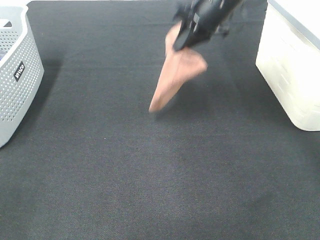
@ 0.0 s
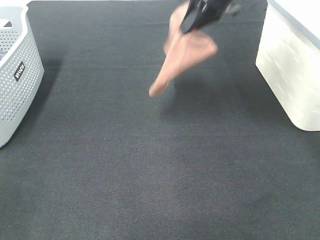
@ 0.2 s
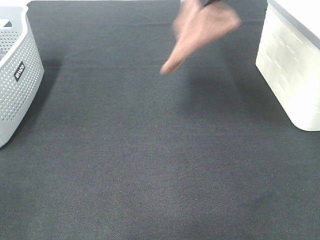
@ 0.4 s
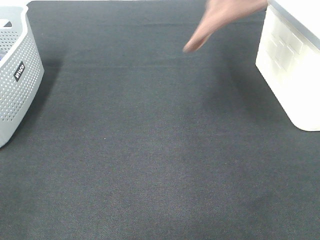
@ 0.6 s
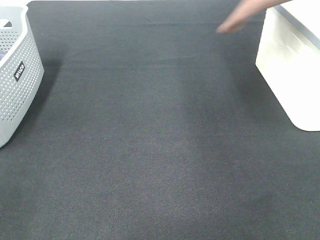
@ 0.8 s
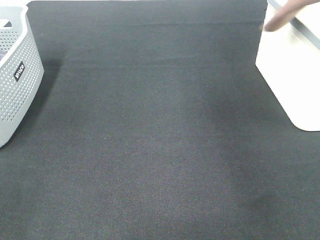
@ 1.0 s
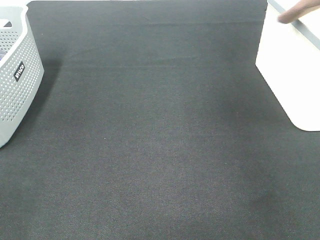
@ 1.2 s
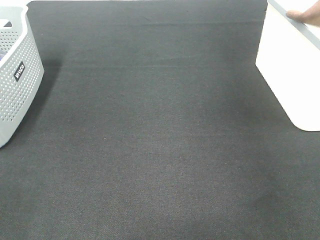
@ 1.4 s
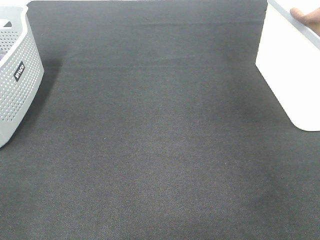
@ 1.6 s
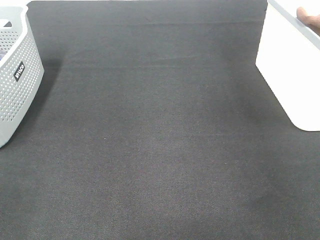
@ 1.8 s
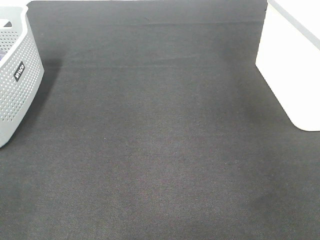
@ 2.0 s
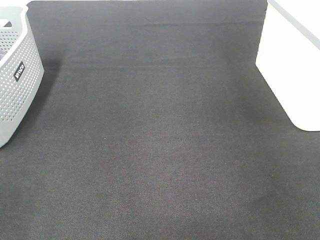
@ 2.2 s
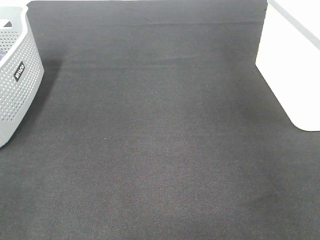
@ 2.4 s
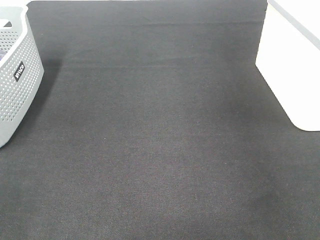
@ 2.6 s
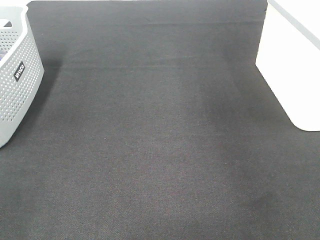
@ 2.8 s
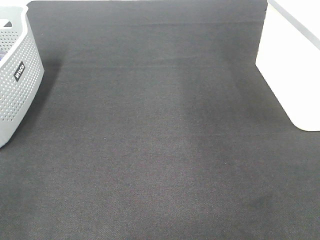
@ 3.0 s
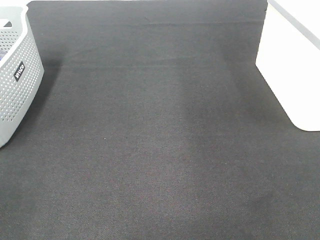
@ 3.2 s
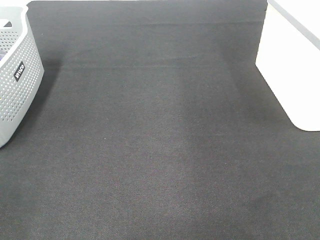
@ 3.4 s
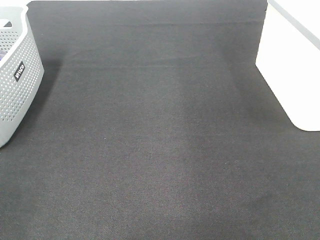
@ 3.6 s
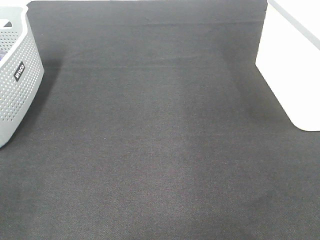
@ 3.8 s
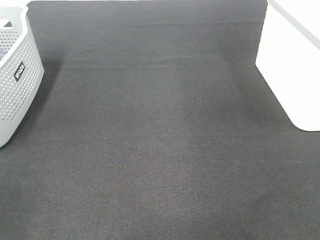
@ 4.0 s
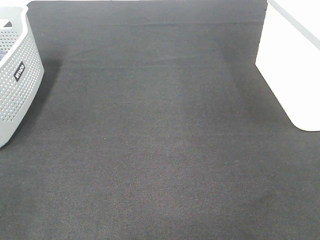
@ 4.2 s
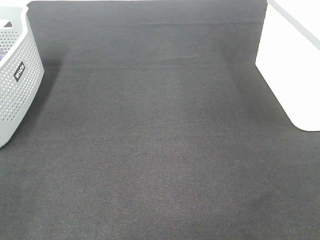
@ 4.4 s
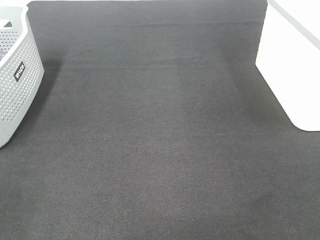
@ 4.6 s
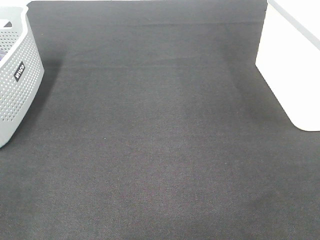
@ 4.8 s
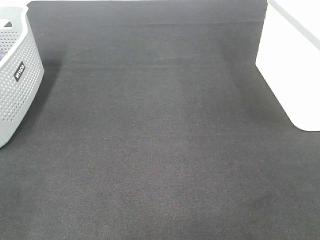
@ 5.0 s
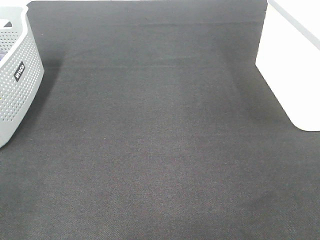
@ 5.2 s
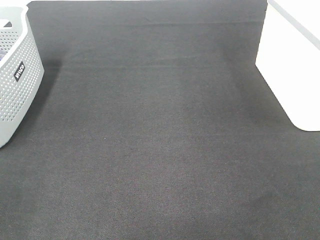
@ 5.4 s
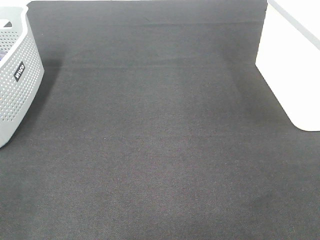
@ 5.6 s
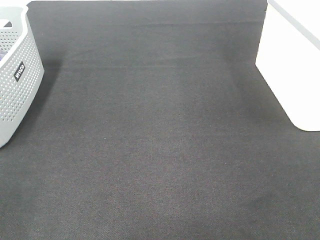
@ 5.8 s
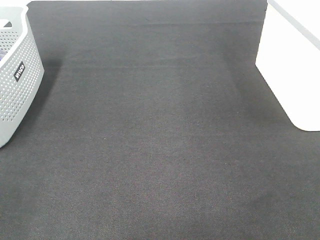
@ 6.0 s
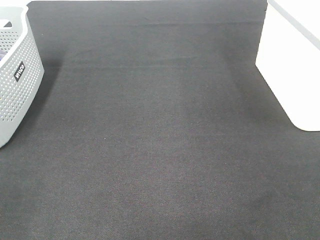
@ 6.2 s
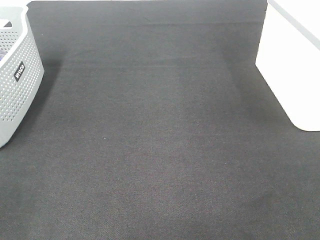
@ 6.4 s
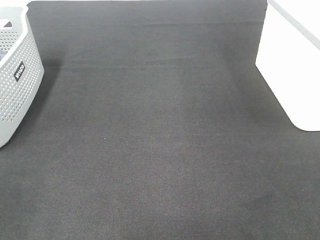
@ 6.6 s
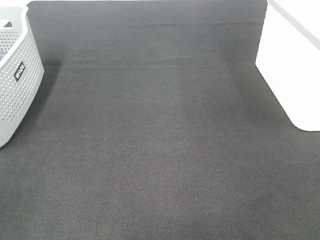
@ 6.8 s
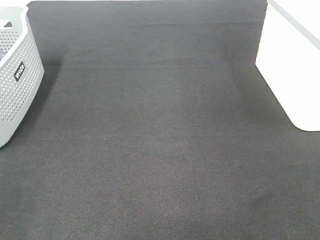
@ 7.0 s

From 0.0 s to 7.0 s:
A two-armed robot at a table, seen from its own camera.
Step, from 0.0 s to 2.2 s: Right hand: place the brown towel in right basket.
From 0.0 s to 1.4 s: The right gripper is displaced to the right by about 30 cm.
From 1.4 s to 2.8 s: The right gripper travels to the left by some 10 cm, and opens.
From 5.6 s to 7.0 s: Both grippers stay about where they are.

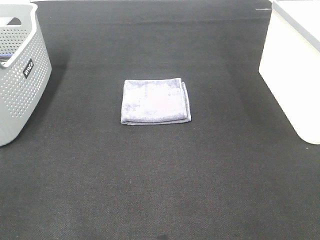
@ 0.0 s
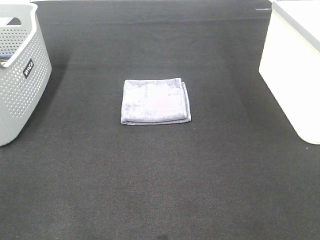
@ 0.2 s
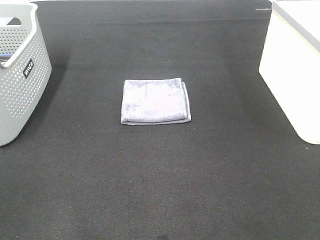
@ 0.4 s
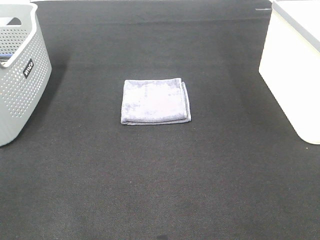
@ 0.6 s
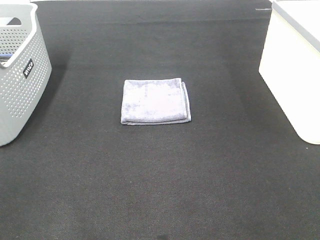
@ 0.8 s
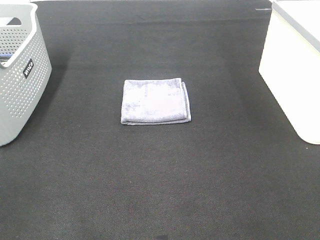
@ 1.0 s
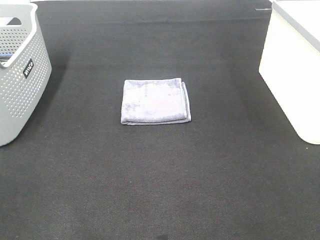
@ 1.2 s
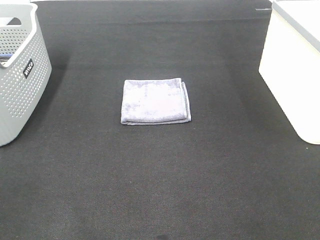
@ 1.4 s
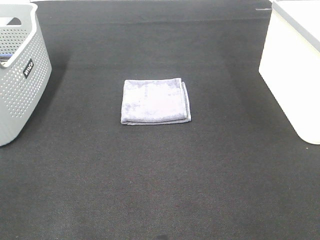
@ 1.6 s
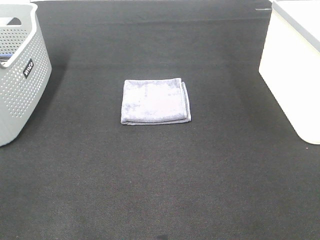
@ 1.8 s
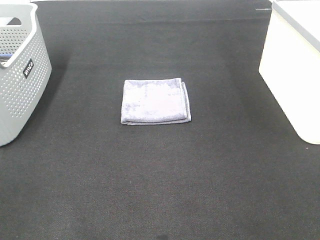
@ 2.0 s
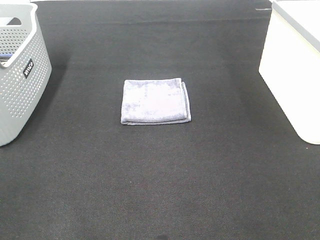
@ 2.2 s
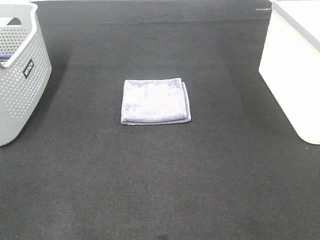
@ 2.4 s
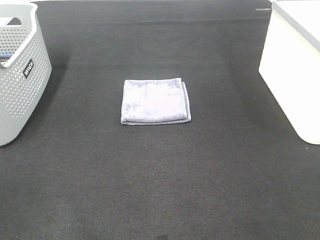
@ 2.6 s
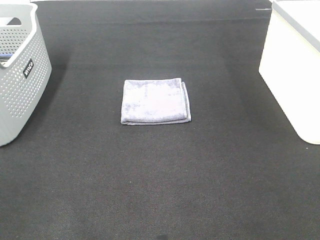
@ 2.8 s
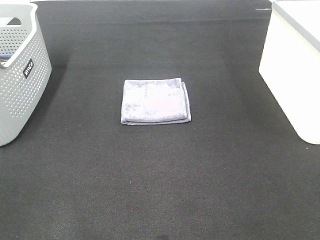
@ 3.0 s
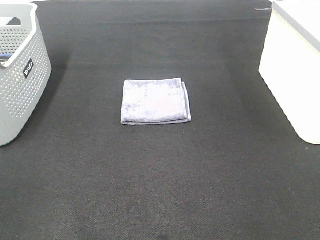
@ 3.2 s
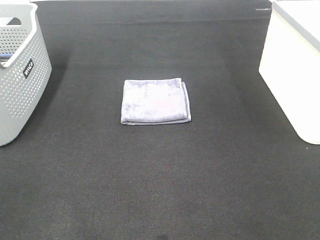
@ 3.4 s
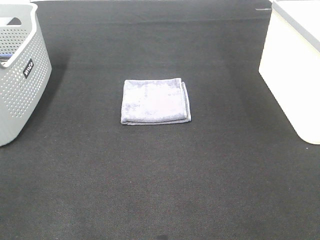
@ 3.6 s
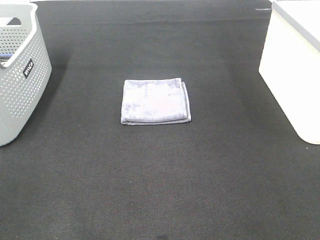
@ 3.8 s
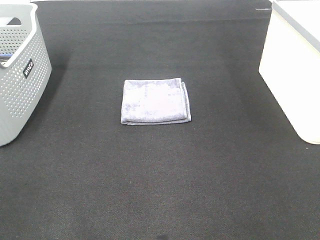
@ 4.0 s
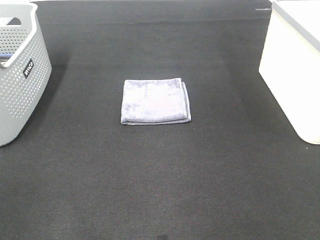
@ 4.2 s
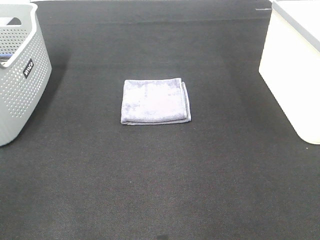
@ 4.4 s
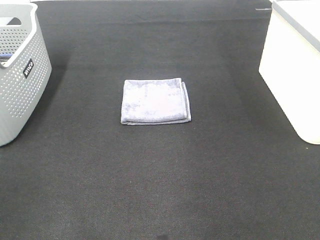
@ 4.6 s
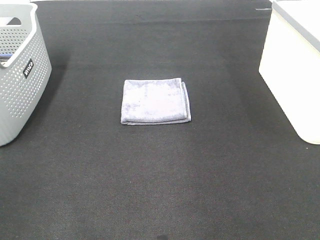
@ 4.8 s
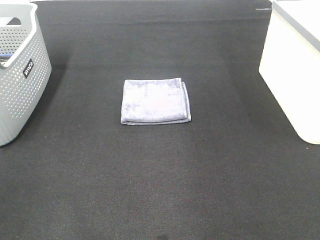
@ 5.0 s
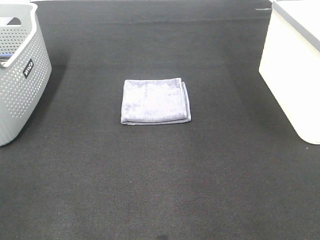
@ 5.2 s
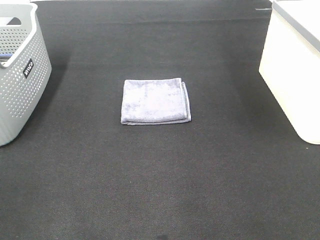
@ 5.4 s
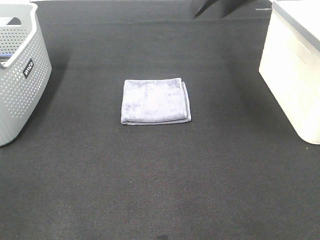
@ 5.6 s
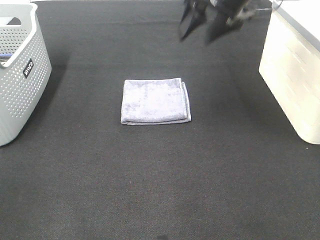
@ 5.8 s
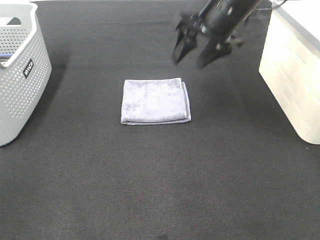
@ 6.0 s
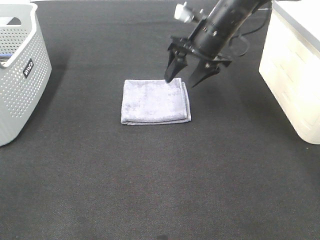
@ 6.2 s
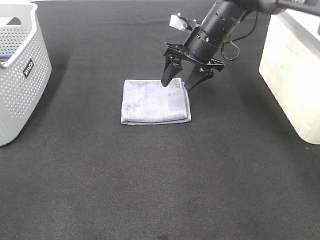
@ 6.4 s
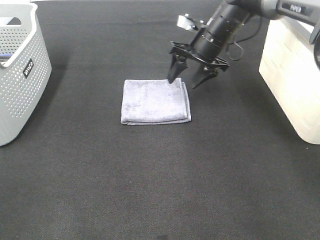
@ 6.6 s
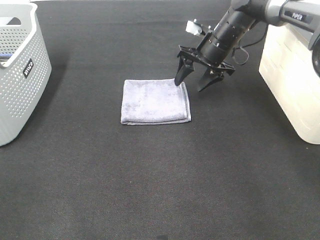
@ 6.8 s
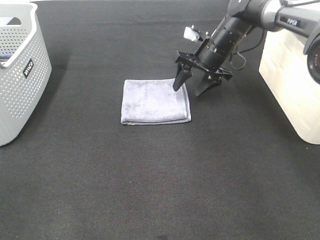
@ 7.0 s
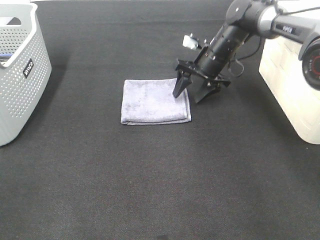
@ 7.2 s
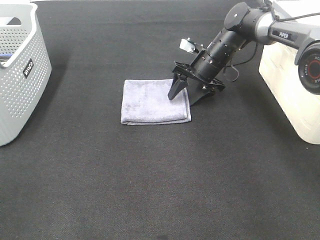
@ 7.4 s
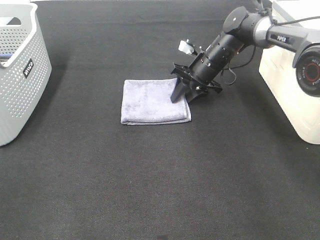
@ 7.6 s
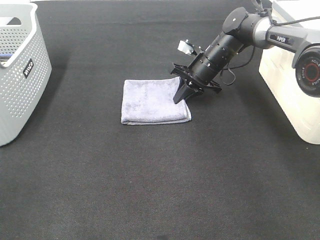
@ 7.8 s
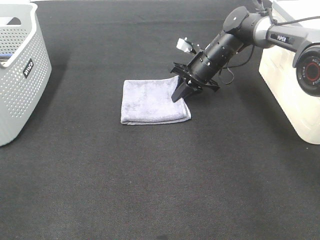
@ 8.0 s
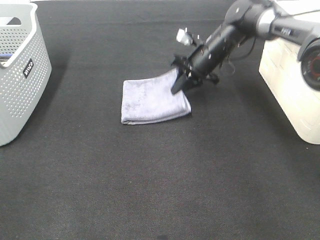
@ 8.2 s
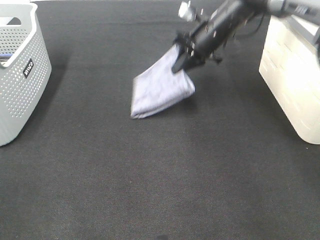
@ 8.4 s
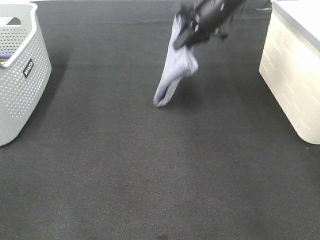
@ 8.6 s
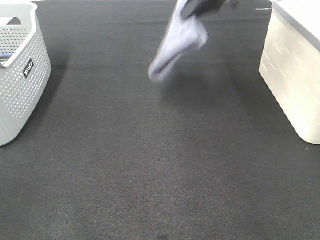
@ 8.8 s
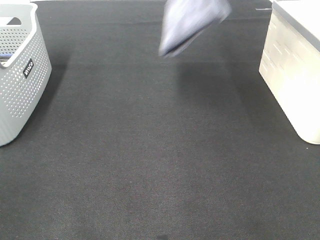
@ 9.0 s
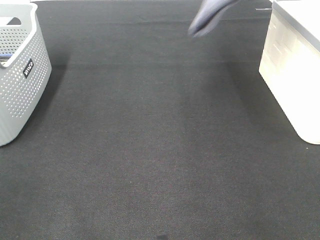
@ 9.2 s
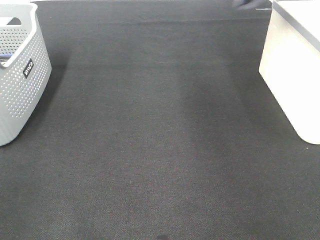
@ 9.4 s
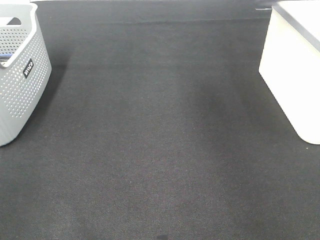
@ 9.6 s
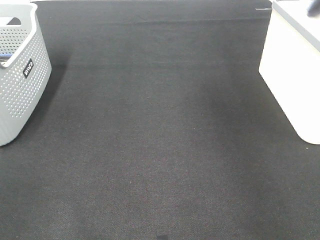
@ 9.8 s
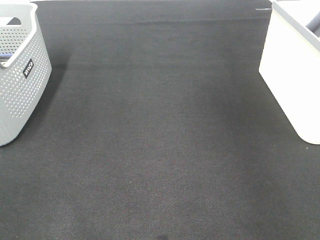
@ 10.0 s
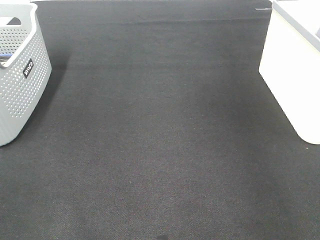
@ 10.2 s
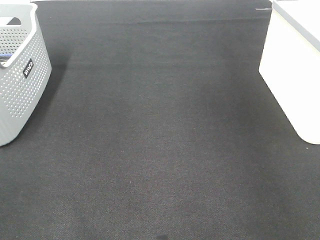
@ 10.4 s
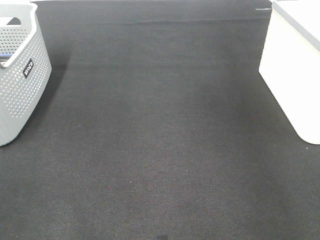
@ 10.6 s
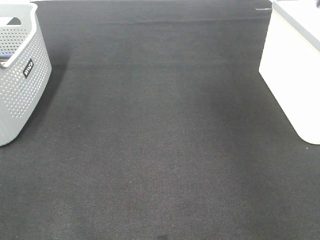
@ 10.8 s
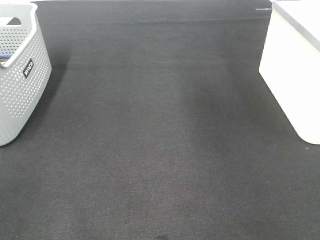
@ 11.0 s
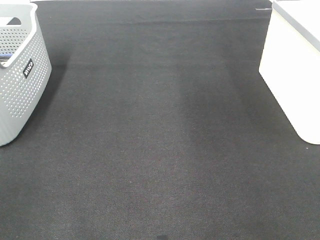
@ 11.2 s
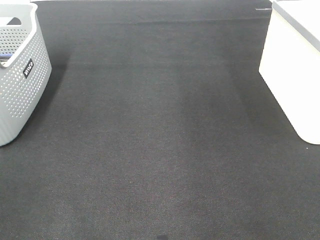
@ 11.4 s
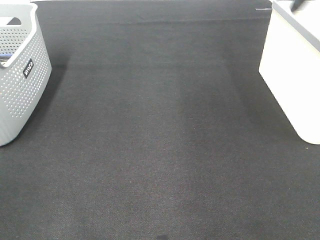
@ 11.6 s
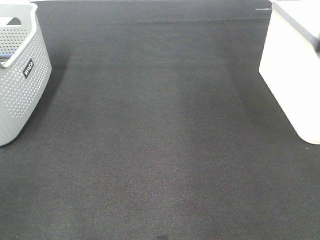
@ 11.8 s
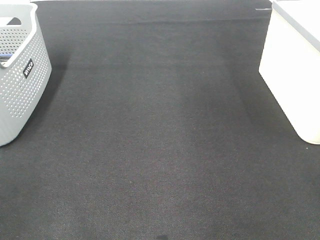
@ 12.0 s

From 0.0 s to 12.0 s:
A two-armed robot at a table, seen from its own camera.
Step, from 0.0 s to 7.8 s: Right hand: grab the folded grey towel.
Step, from 8.0 s to 10.6 s: Right hand: place the grey towel in right basket.
From 0.0 s to 3.0 s: Both grippers stay put.
From 4.4 s to 6.0 s: The right gripper heads forward, downward and to the left, covering about 35 cm.
From 6.0 s to 7.6 s: The right gripper moves downward and forward, roughly 15 cm, and closes up.
From 7.6 s to 9.0 s: The right gripper heads upward, covering approximately 30 cm, and closes.
From 9.0 s to 10.4 s: The right gripper heads to the right, covering roughly 25 cm, and opens up.
